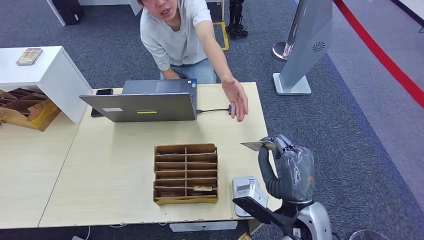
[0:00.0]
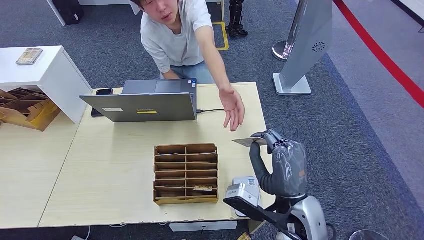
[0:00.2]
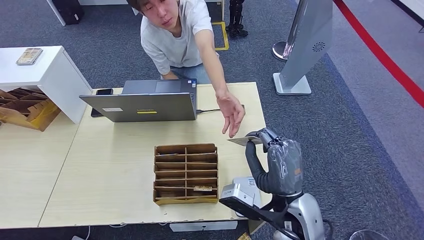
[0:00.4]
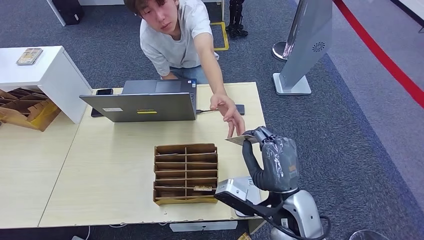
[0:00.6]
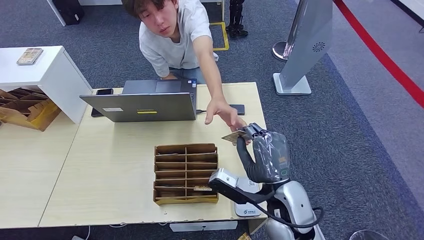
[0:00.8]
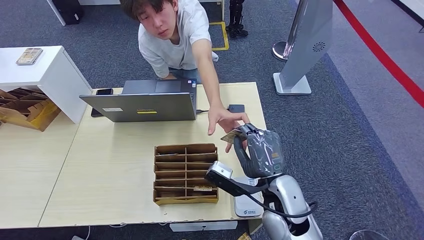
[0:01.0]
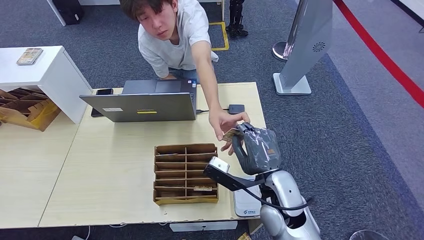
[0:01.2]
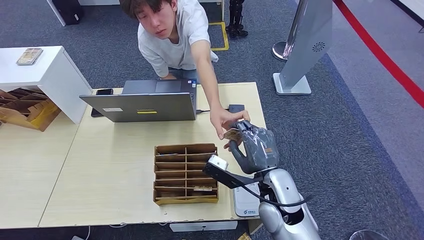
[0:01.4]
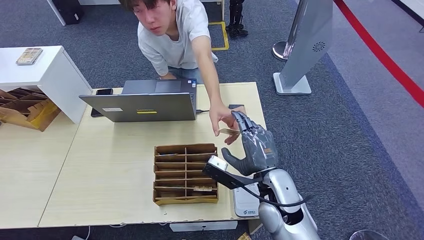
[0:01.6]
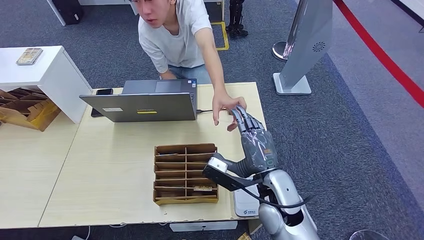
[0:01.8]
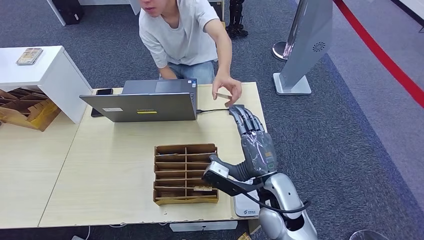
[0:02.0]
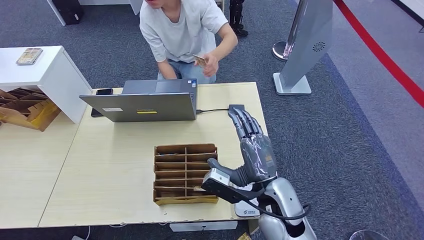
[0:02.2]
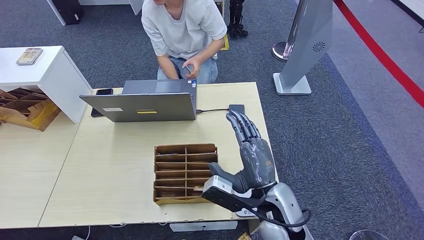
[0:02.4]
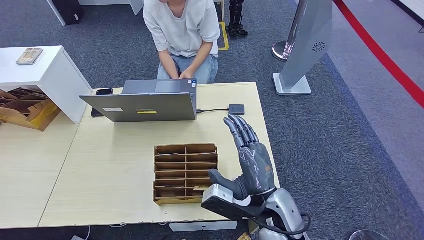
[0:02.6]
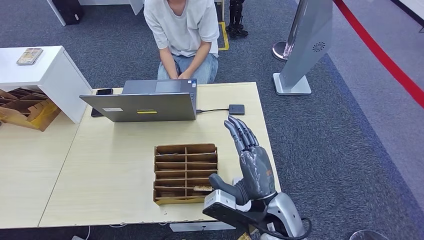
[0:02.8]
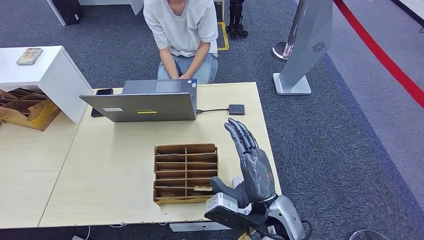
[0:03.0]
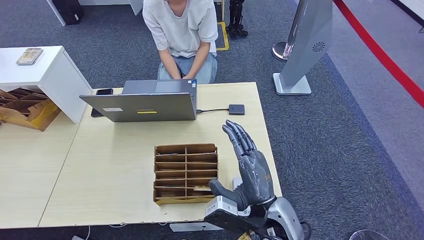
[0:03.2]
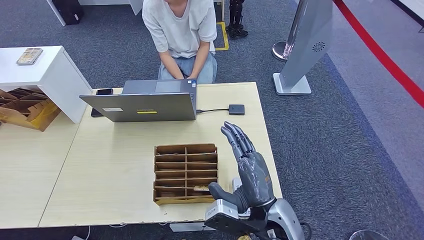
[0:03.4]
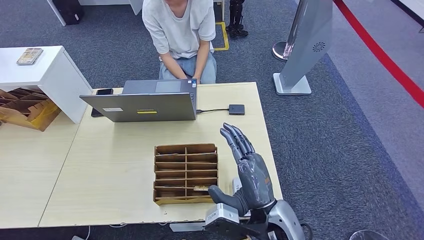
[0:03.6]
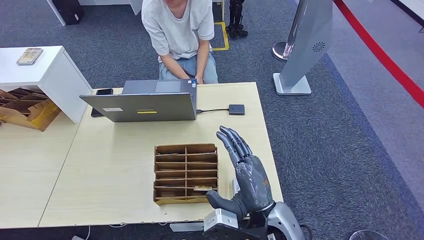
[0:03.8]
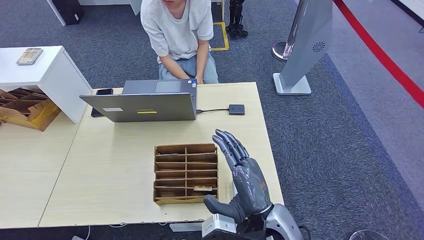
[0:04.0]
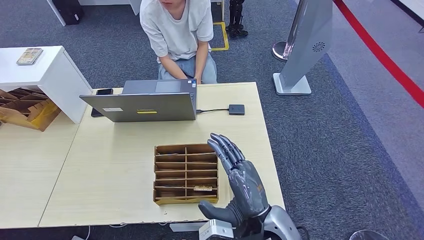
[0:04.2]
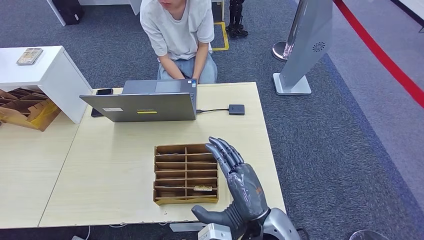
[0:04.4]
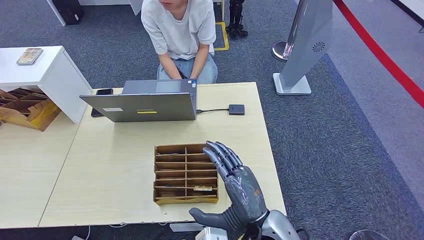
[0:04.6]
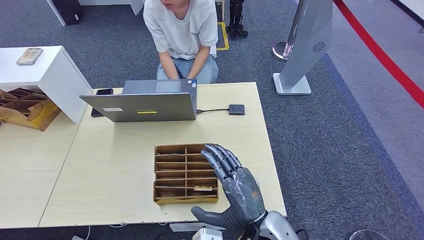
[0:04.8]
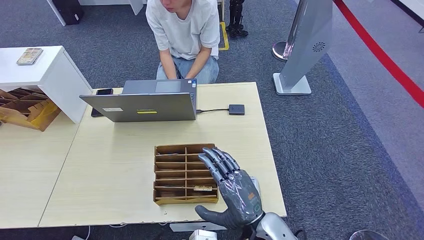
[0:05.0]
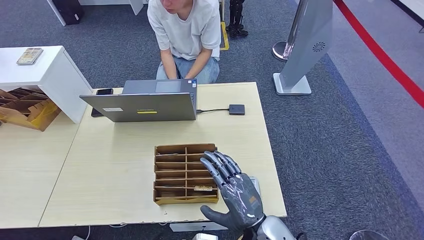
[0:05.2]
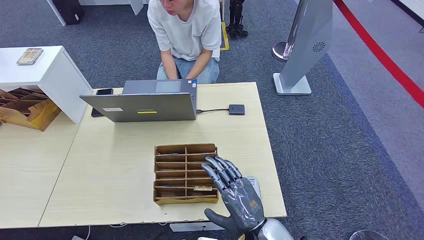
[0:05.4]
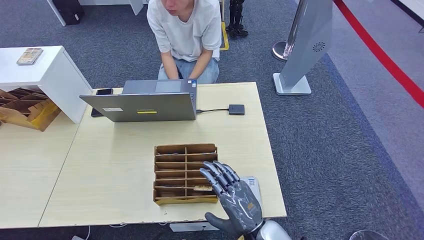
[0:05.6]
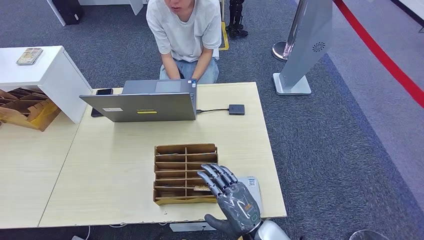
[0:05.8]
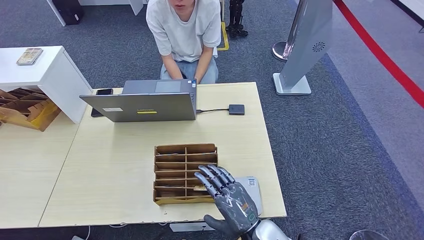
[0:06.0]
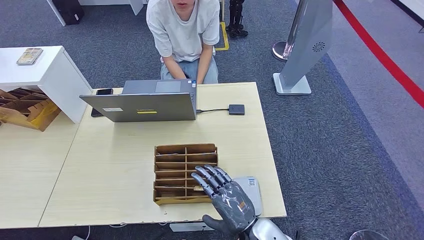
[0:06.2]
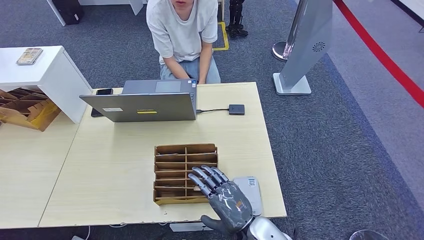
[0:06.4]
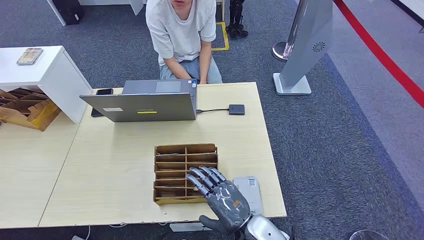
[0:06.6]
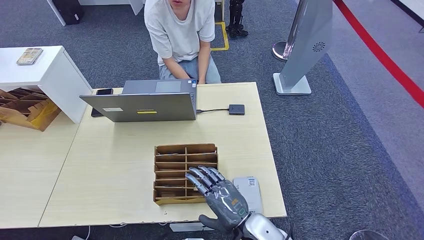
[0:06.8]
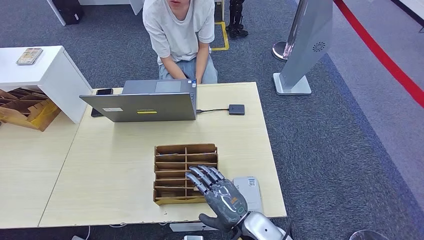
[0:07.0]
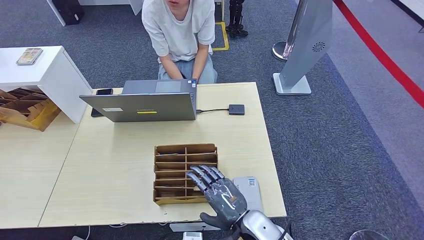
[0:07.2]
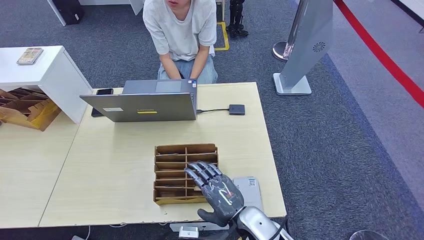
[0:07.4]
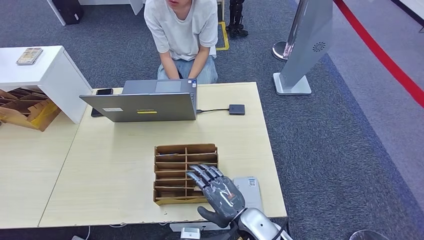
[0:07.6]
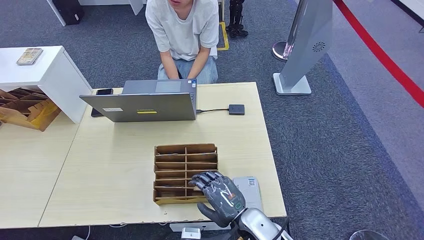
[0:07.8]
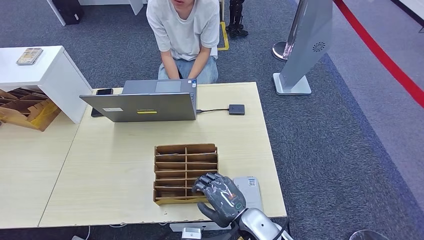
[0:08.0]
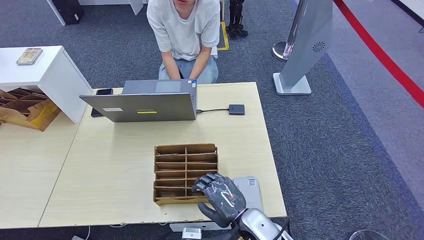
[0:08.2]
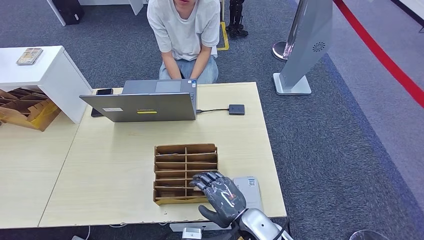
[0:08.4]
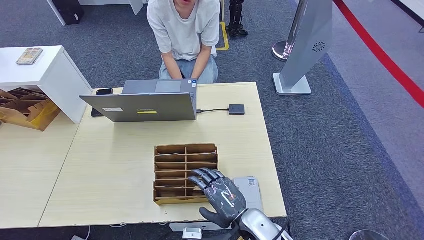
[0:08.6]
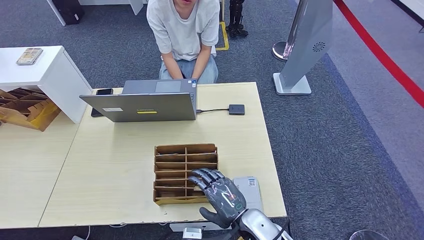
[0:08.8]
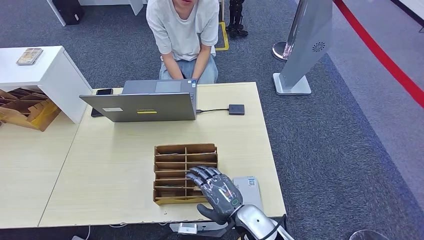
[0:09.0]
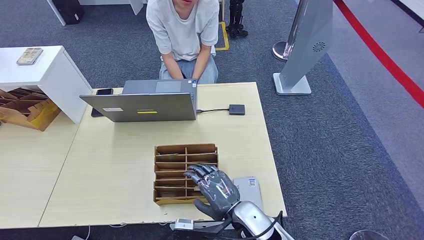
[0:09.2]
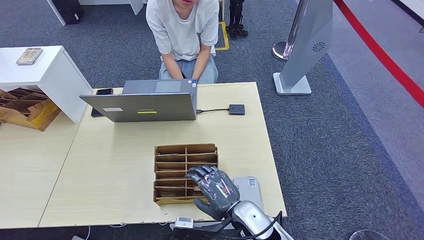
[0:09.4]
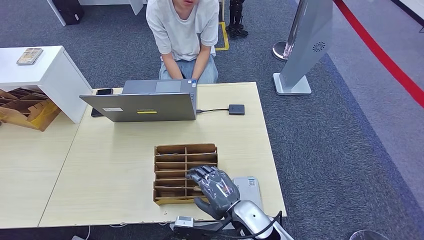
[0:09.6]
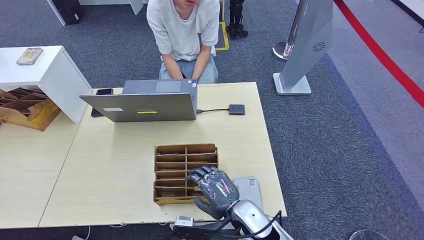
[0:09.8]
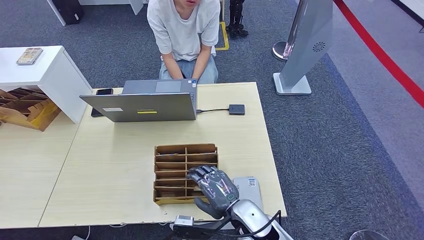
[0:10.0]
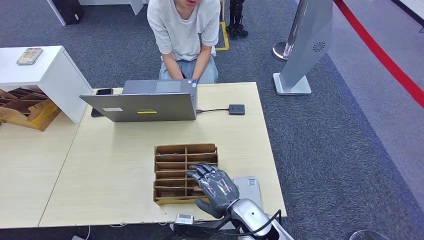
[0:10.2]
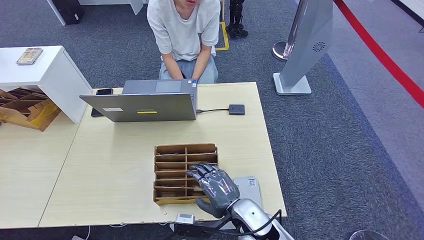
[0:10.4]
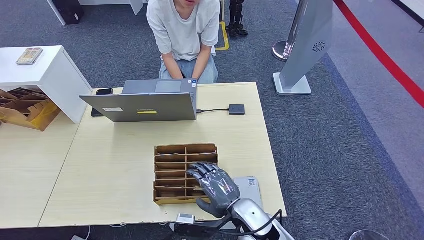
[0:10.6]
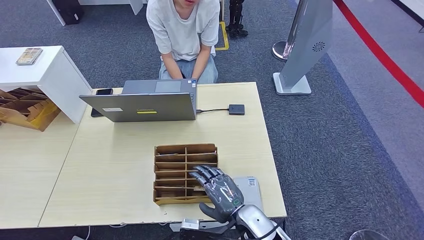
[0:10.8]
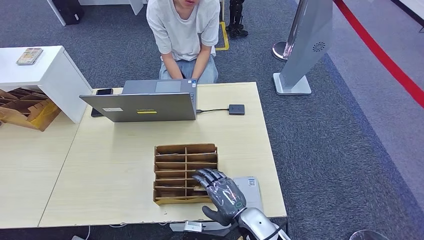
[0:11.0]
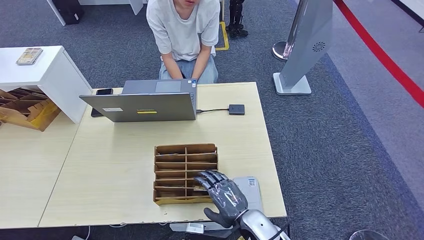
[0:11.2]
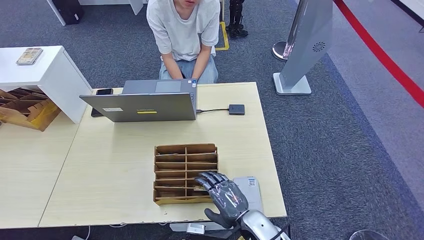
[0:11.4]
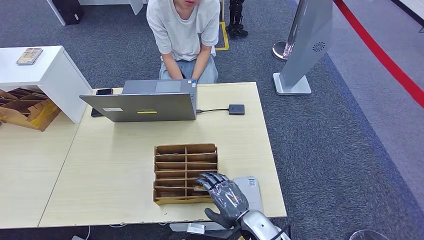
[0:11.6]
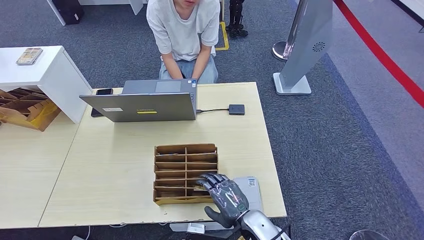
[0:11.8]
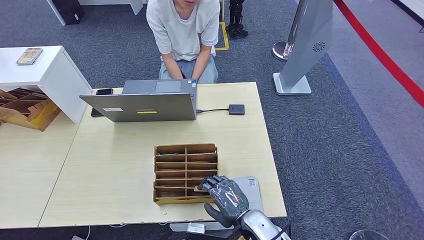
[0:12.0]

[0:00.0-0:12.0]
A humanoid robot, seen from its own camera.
Step, 0:00.0 to 0:02.0: Hand the ID card to the person.
0:00.0 to 0:01.6: The right hand moves forward, some 5 cm.
0:01.6 to 0:03.0: The right hand goes some 5 cm backward.
0:03.0 to 0:04.4: There are only small adjustments of the hands.
0:04.4 to 0:06.0: The right hand travels downward by some 5 cm.
0:06.0 to 0:07.6: There are only small adjustments of the hands.
0:07.6 to 0:09.0: Both hands stay about where they are.
0:09.0 to 0:12.0: There are only small adjustments of the hands.

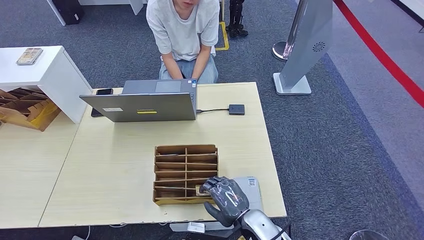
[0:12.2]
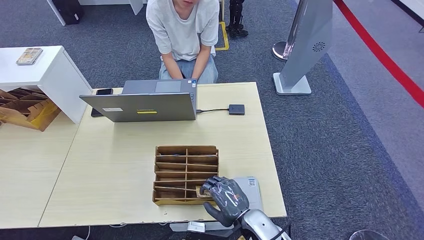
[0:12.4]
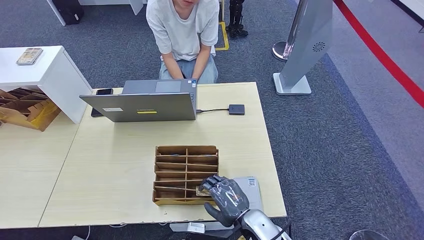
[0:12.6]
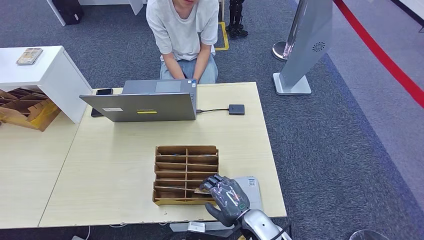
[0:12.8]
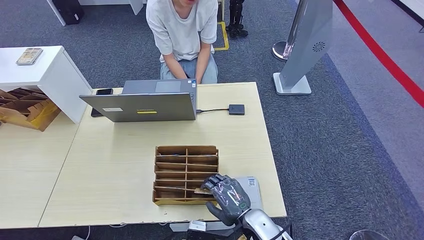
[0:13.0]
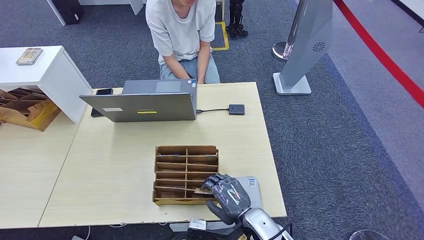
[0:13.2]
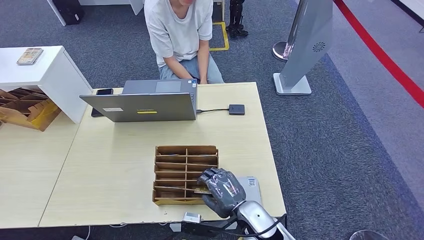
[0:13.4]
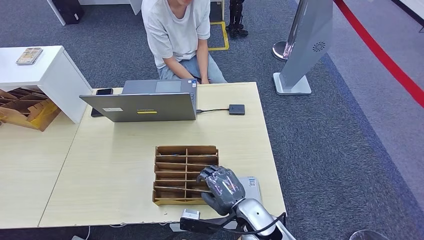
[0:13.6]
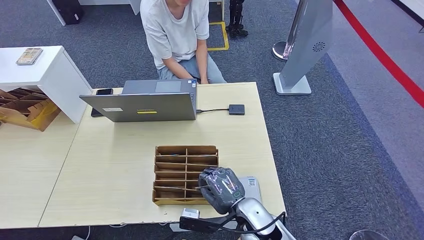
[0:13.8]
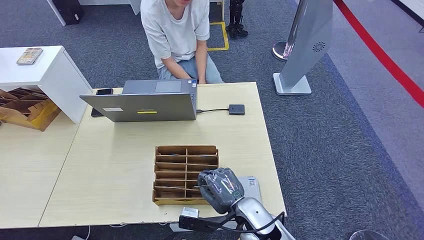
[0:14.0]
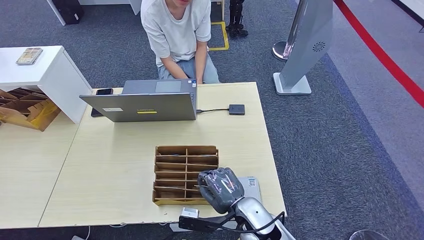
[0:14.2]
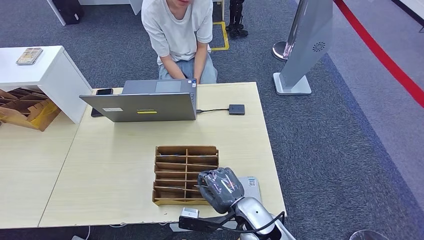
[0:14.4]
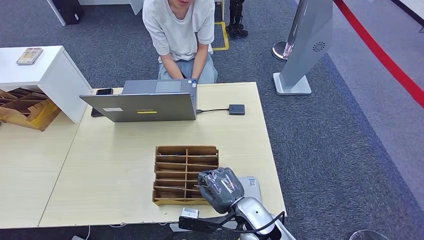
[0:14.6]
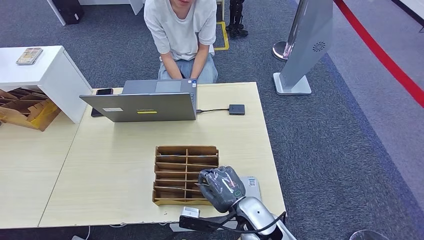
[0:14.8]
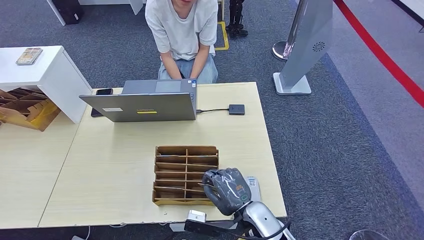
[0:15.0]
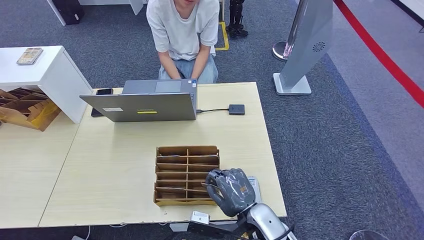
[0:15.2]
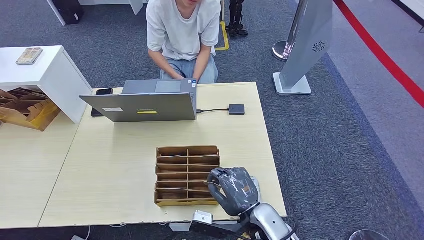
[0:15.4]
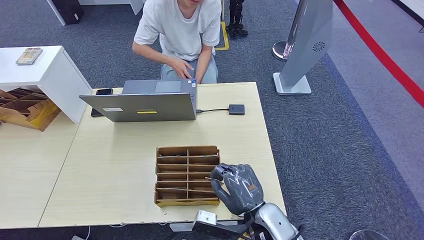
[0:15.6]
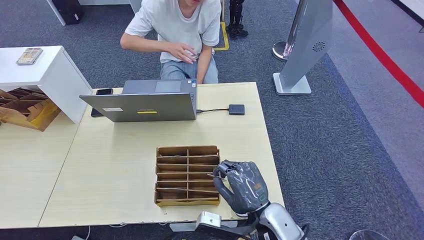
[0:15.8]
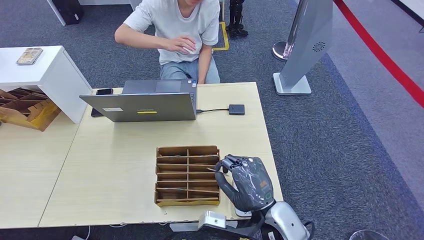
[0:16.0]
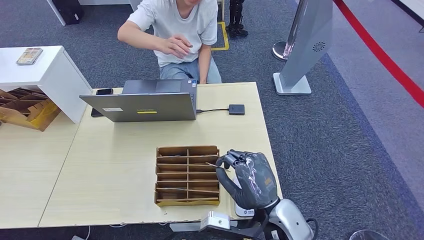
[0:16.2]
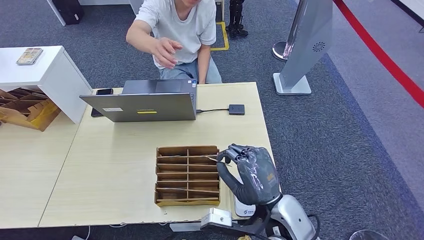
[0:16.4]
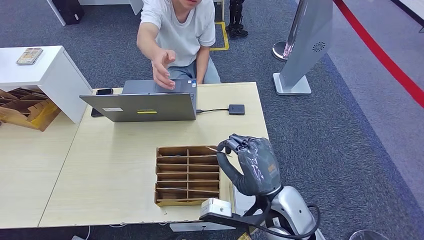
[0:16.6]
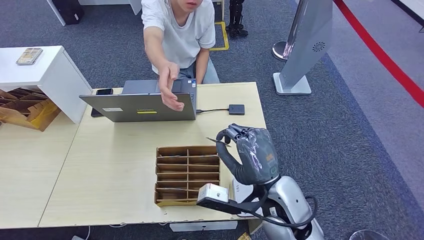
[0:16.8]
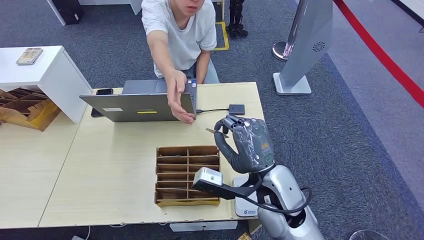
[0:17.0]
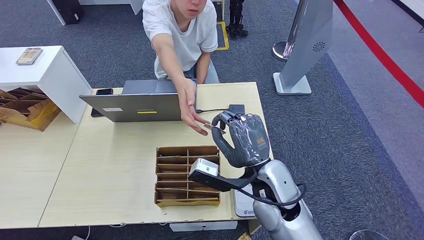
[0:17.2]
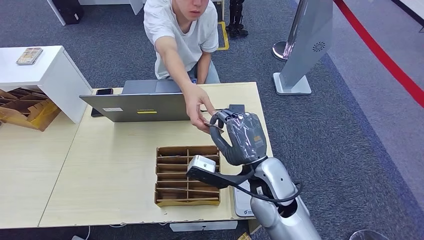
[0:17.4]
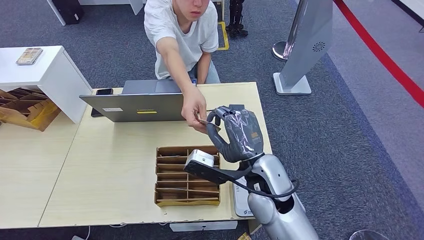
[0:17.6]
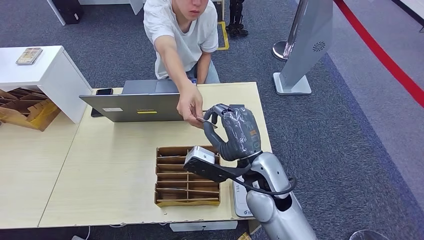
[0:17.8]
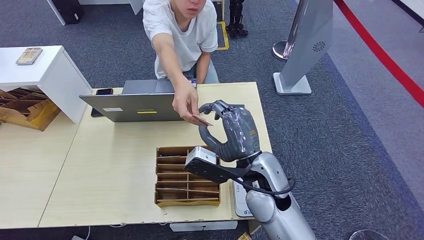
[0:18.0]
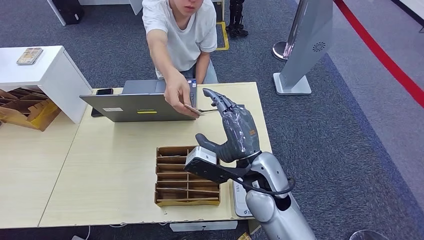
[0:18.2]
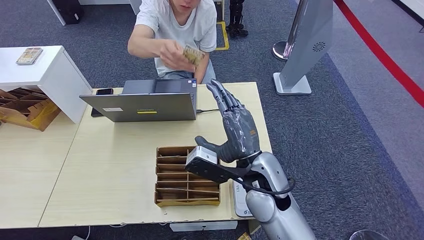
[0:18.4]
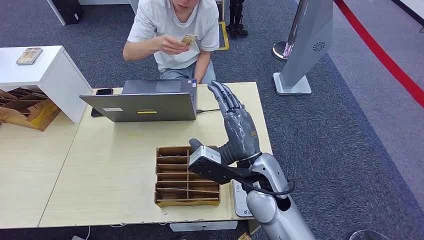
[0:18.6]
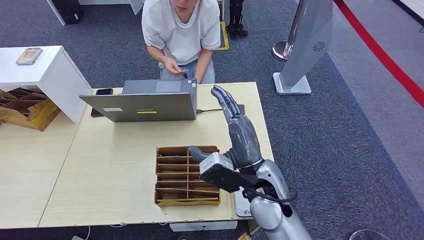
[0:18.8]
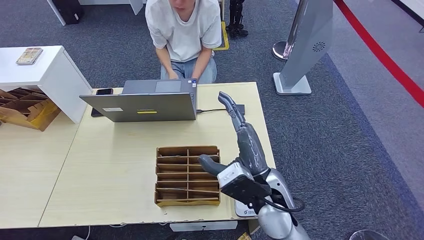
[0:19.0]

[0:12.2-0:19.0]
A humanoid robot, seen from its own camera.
Step, 0:12.2 to 0:15.8: Pick up the room key from the key card box.
0:12.2 to 0:15.0: The hands move only a little.
0:15.0 to 0:16.2: The right hand shifts some 10 cm upward.
0:16.2 to 0:17.6: The right hand shifts about 10 cm forward.
